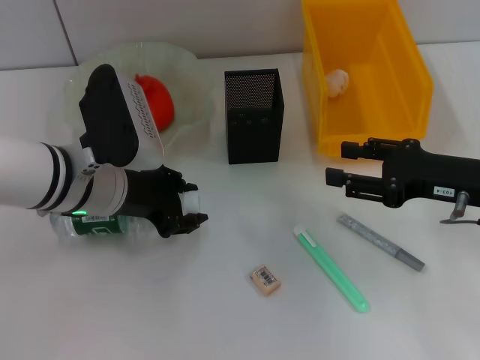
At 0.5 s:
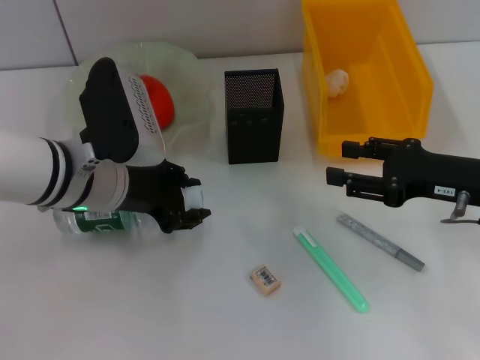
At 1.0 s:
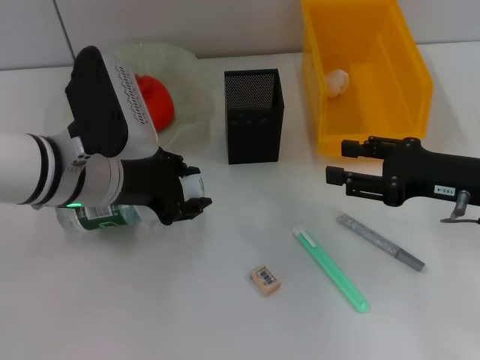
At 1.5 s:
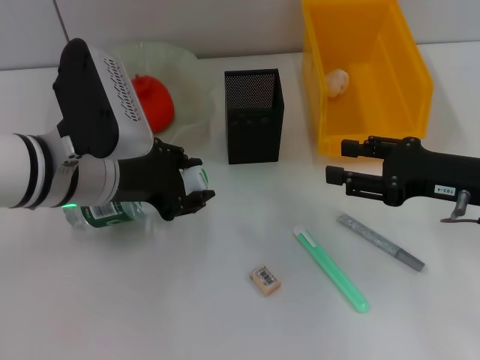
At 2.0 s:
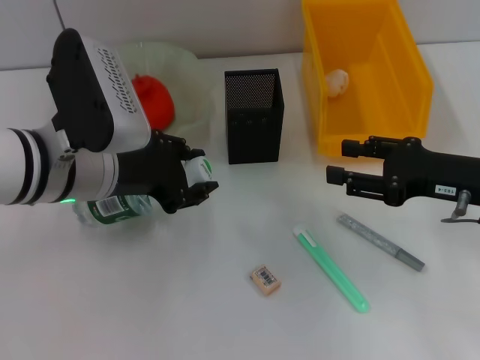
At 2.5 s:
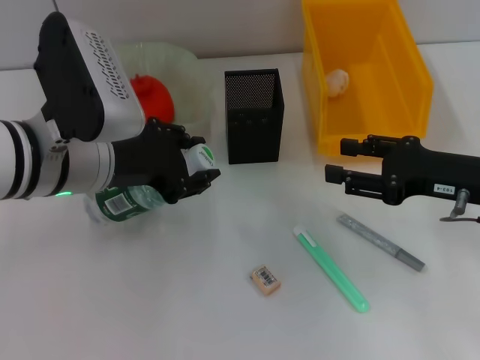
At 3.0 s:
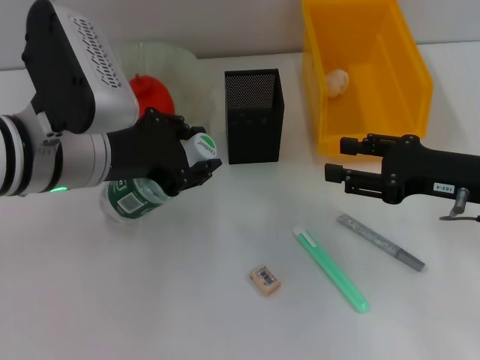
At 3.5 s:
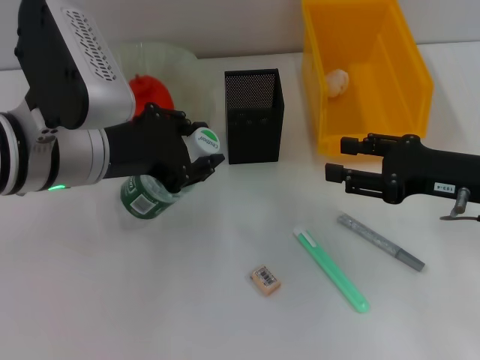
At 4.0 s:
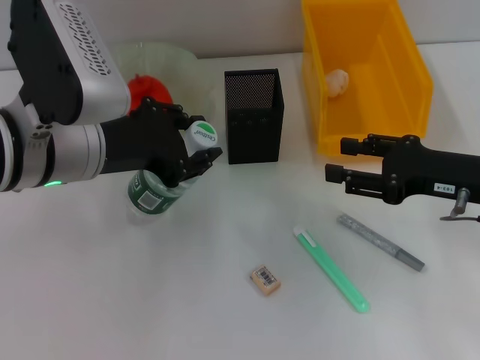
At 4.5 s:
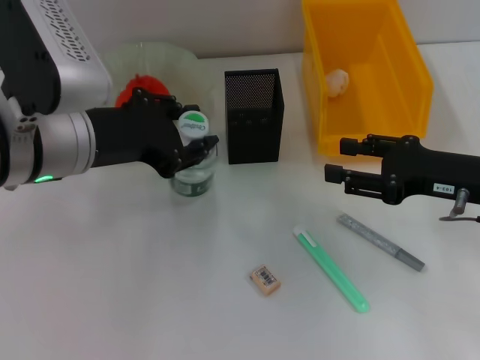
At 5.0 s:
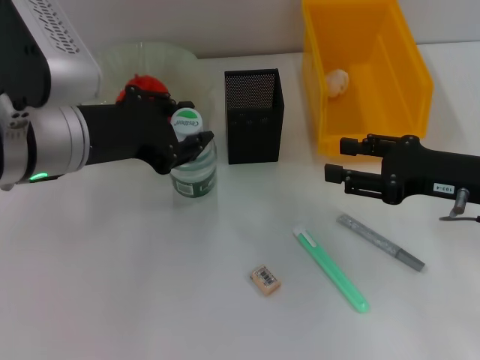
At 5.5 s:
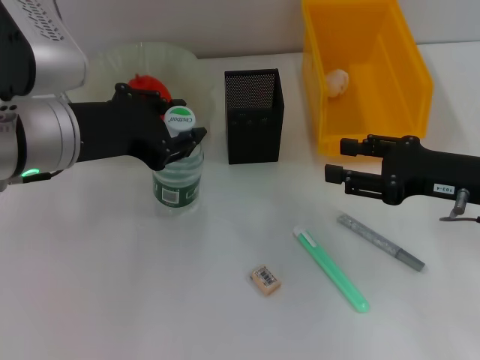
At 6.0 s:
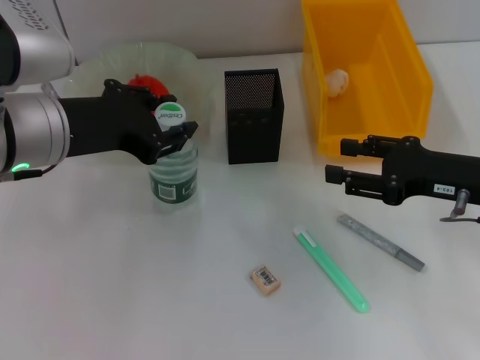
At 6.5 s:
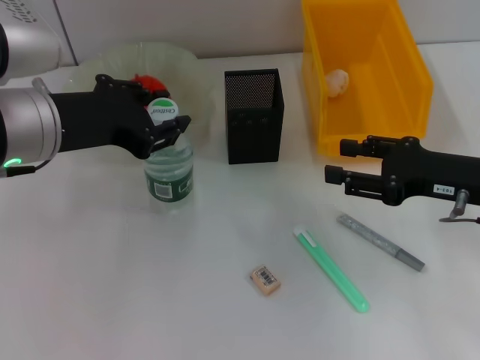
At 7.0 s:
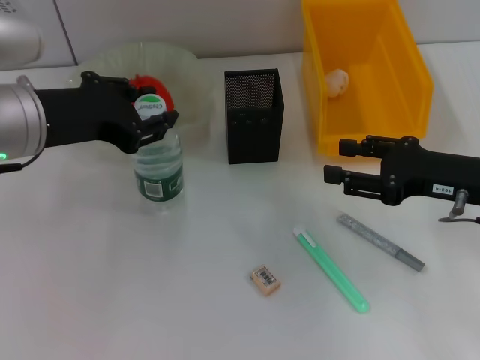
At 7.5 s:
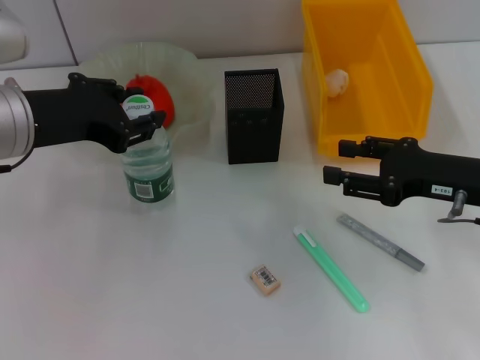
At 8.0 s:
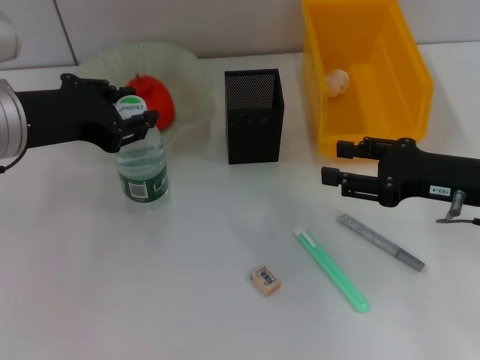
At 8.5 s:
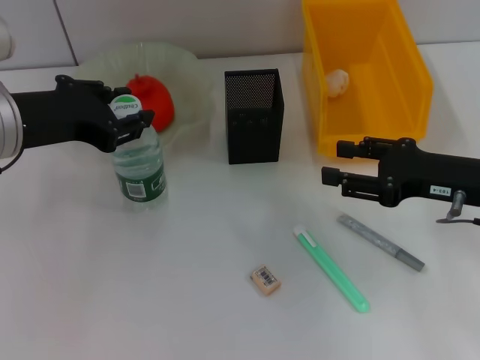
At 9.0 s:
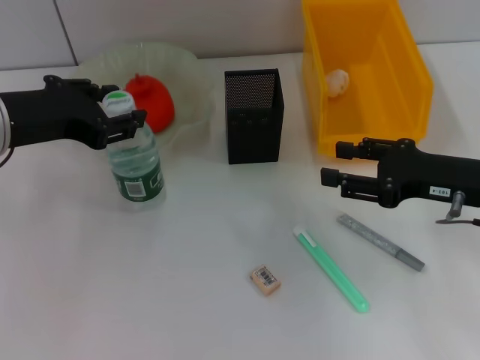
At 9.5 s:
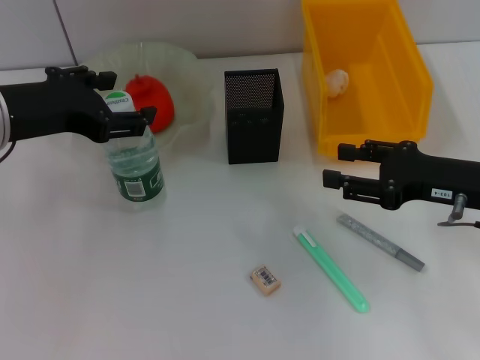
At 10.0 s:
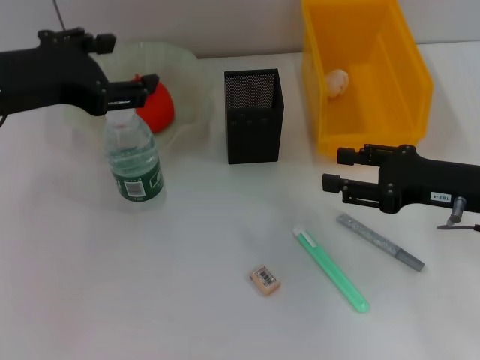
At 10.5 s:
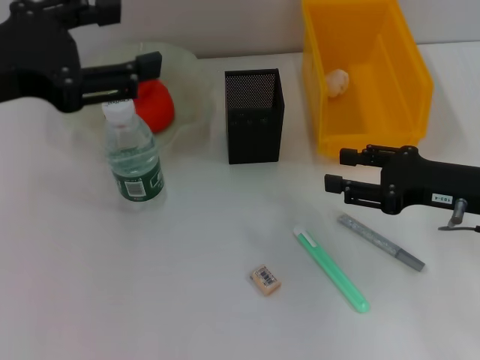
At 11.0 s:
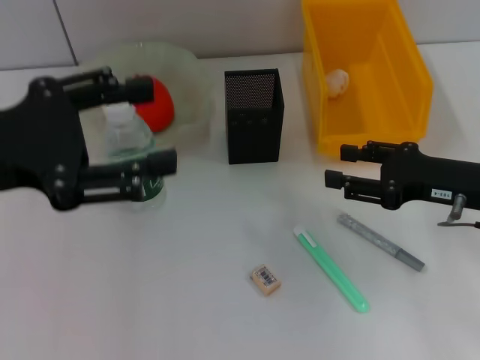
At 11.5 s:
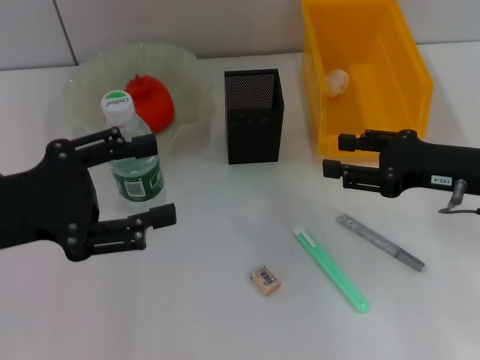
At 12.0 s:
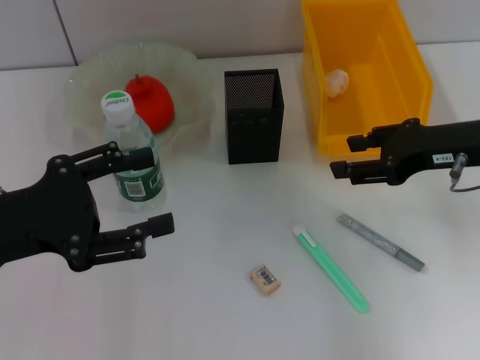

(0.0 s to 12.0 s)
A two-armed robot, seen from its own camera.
Step, 0.0 s - 9.5 s: Place the water bottle on the table with the left hand.
0.0 s - 2.0 s: The grippers make only small movements.
2.0 s - 6.0 s: The grippers stay close to where they were, moving slightly.
6.0 s - 8.0 s: The grippers move only a little.
8.0 s - 10.0 s: The left gripper opens up.
10.0 s - 12.0 s: The right gripper shifts approximately 5 cm upward; the left gripper moves downward and backward, some 10 cm.

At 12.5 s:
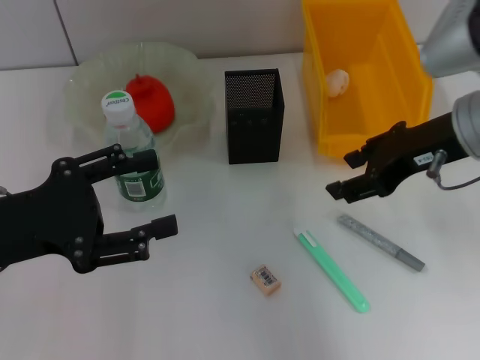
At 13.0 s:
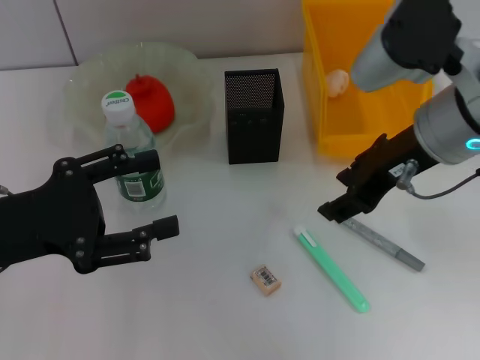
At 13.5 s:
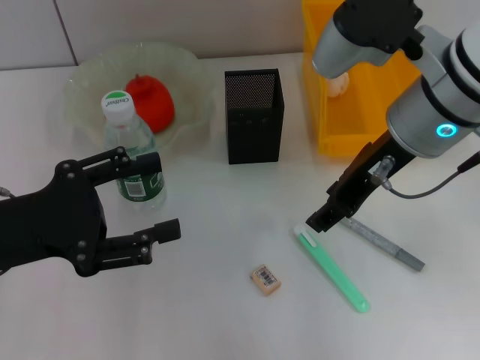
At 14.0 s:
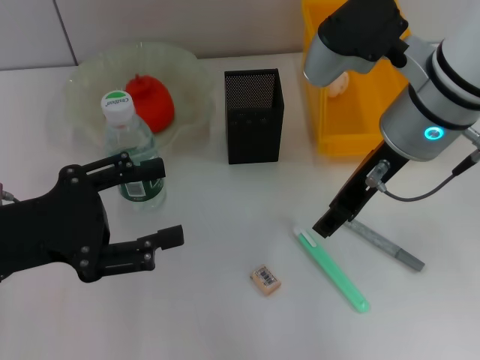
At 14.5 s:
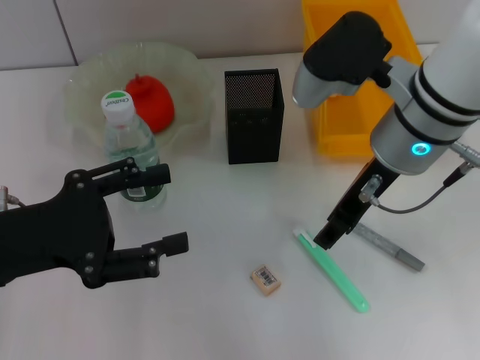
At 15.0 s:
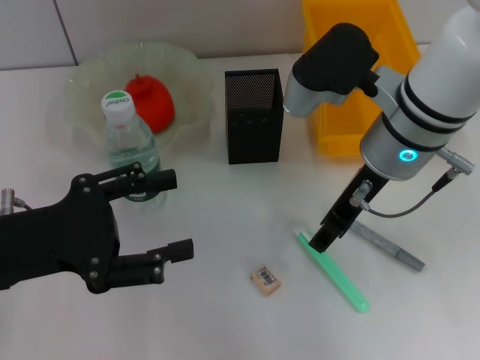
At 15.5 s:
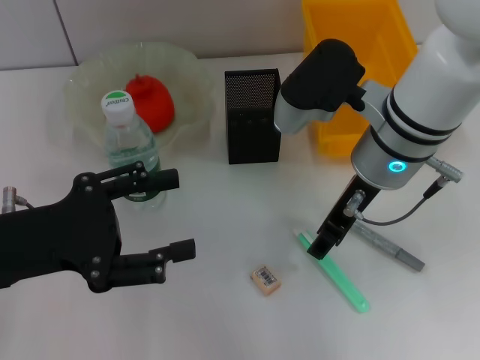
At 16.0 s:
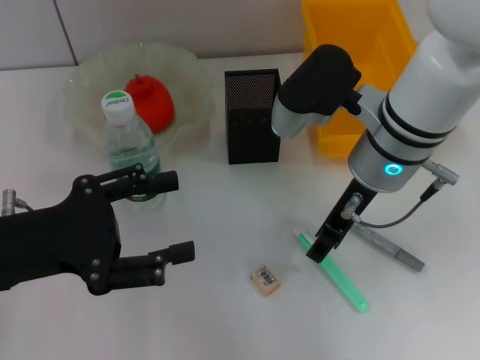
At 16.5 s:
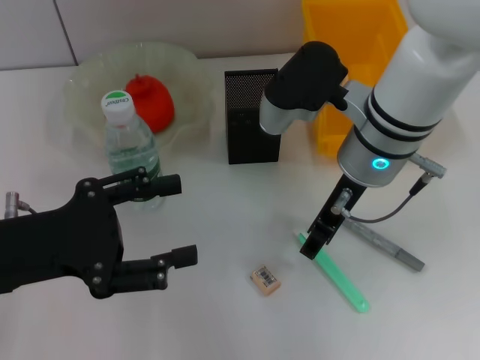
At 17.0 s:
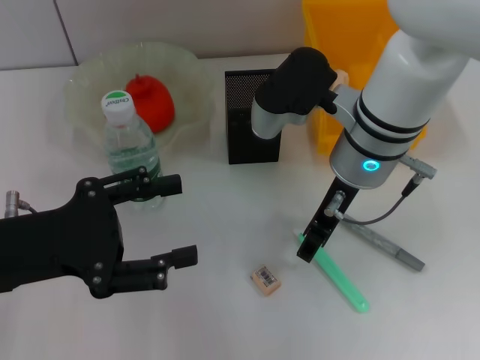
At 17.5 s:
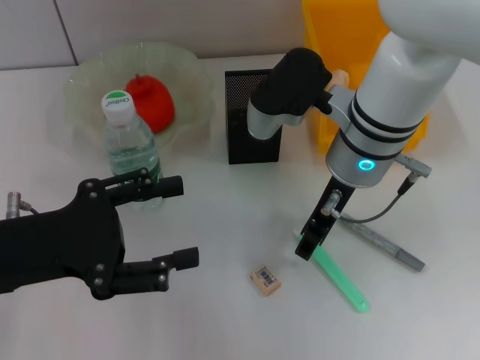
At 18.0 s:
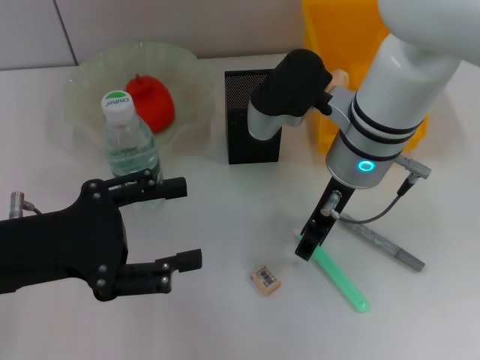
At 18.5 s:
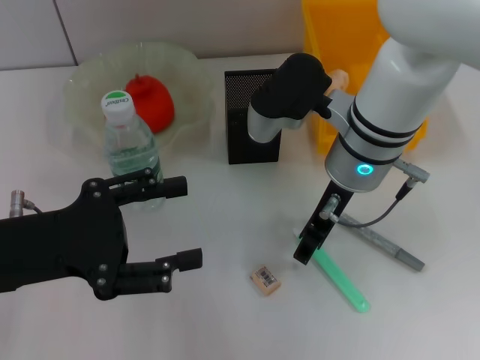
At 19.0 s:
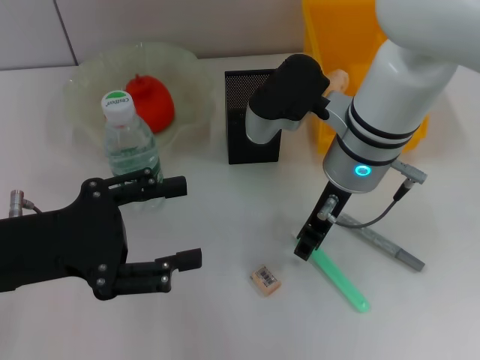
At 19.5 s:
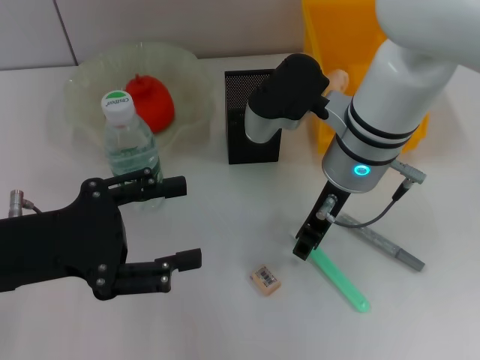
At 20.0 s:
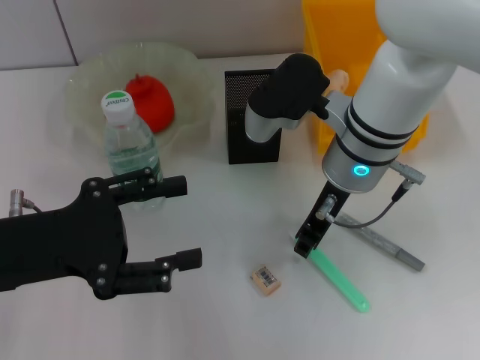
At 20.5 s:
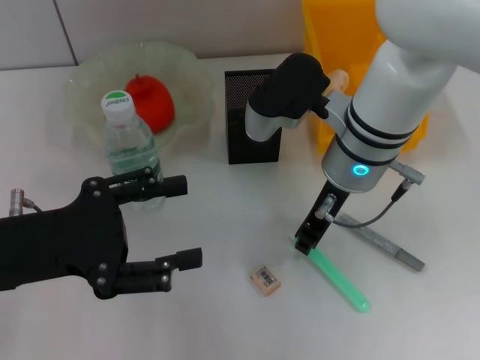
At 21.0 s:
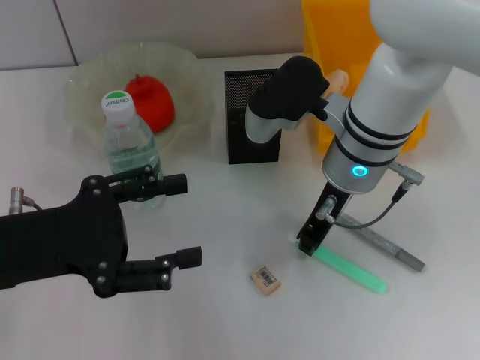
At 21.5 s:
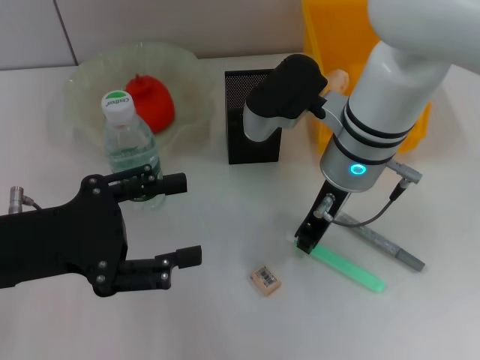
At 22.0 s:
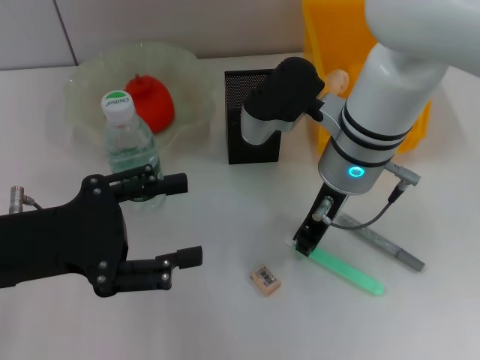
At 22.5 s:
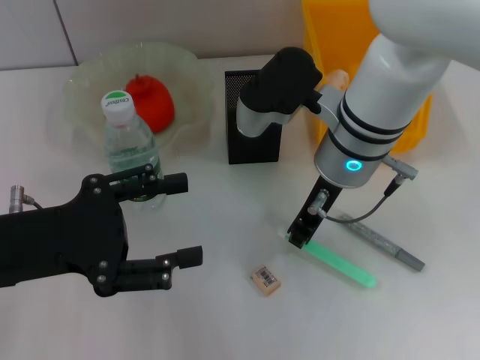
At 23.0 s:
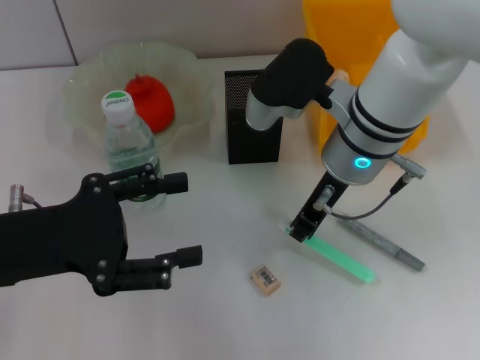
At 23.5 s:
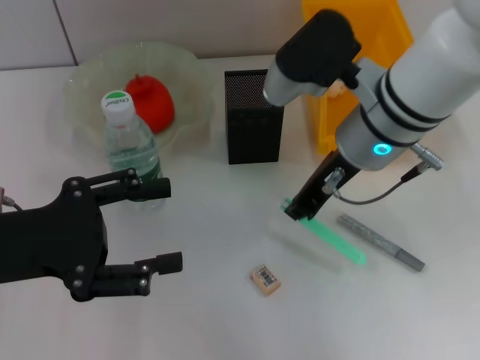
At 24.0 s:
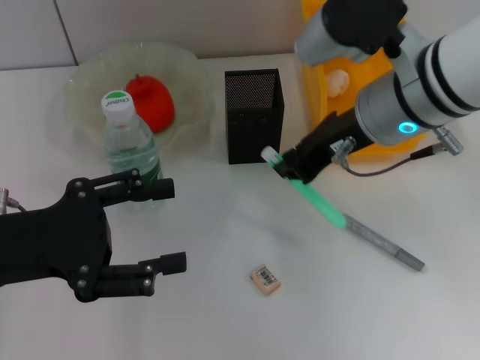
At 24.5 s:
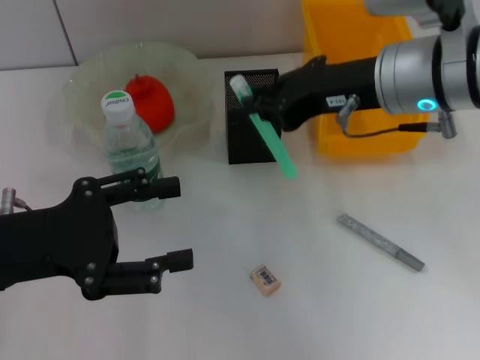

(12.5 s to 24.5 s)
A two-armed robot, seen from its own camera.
Step, 12.5 s - 21.0 s: Grab the blue utility knife with the right hand.
12.5 s - 14.5 s: The right gripper heads to the left, covering roughly 10 cm.
14.5 s - 18.5 s: The grippers move only a little.
18.5 s - 20.5 s: The right gripper closes.
20.5 s - 22.5 s: Neither gripper changes place.
22.5 s - 24.5 s: The right gripper goes about 10 cm upward and to the right.

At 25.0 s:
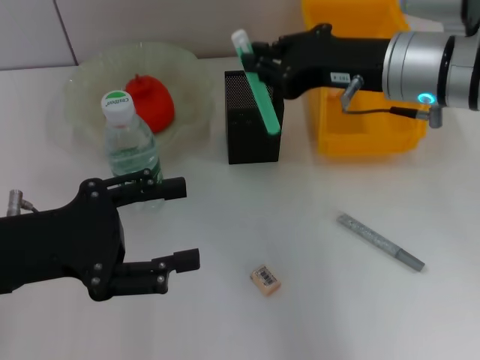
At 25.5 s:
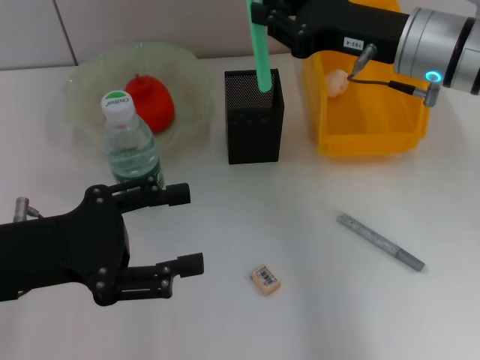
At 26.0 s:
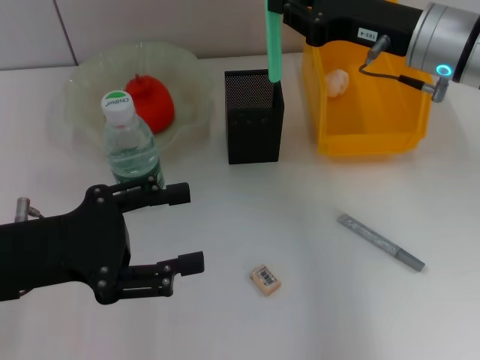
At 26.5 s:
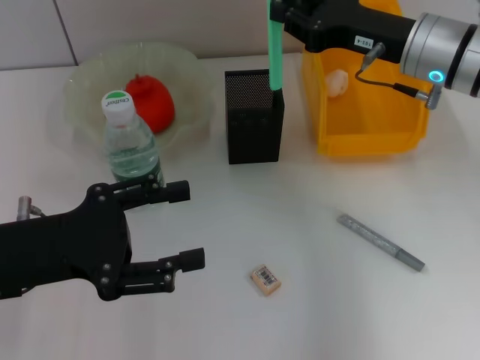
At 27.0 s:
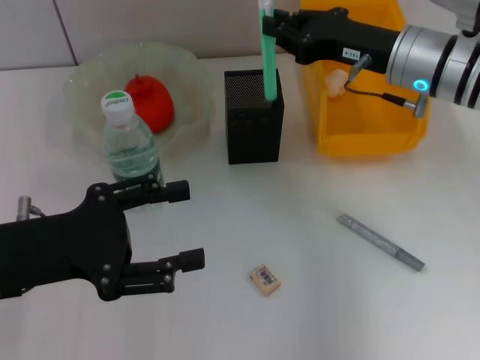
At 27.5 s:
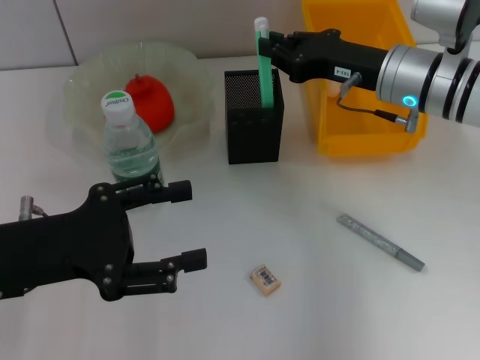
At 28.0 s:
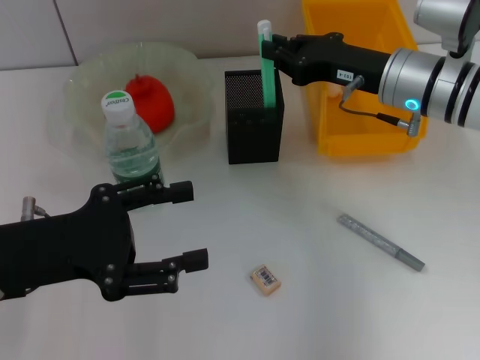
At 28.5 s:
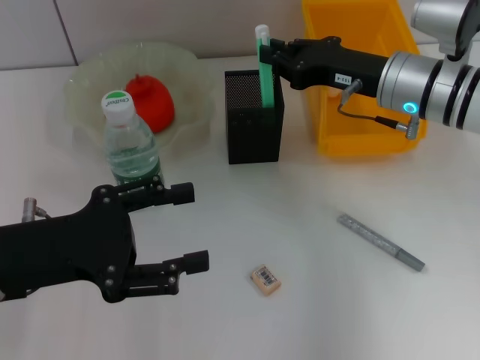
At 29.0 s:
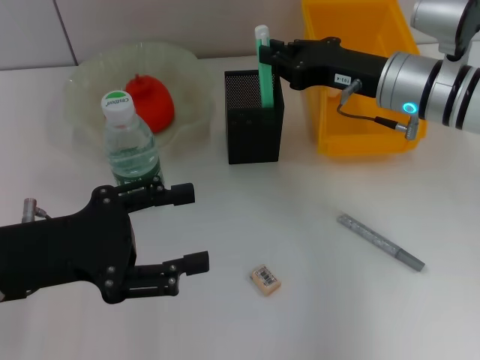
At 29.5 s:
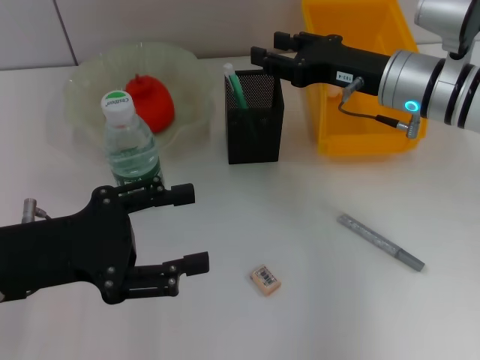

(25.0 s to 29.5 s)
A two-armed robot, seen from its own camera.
25.0 s - 27.0 s: The right gripper shifts by some 5 cm.
27.0 s - 29.5 s: There are only small adjustments of the grippers.
